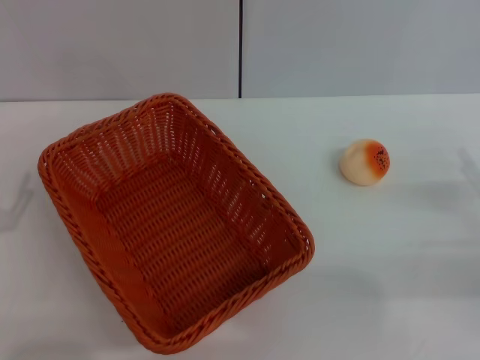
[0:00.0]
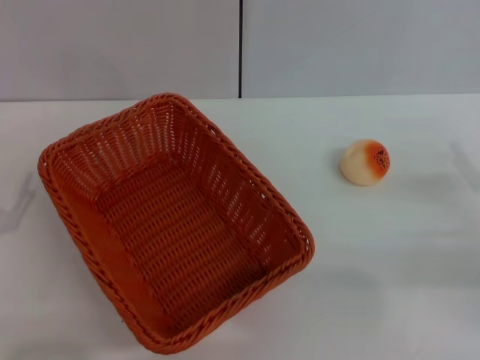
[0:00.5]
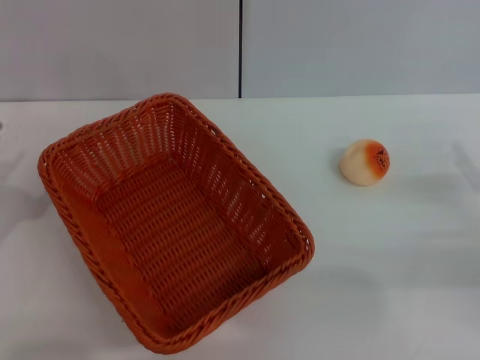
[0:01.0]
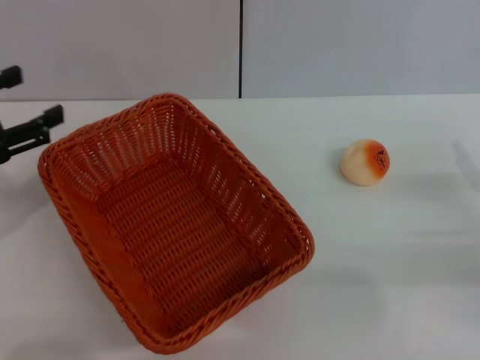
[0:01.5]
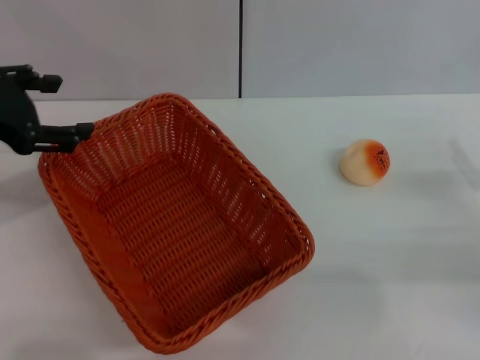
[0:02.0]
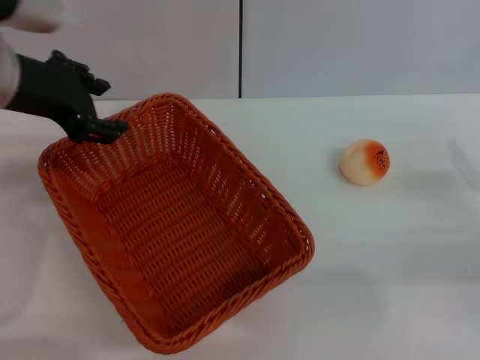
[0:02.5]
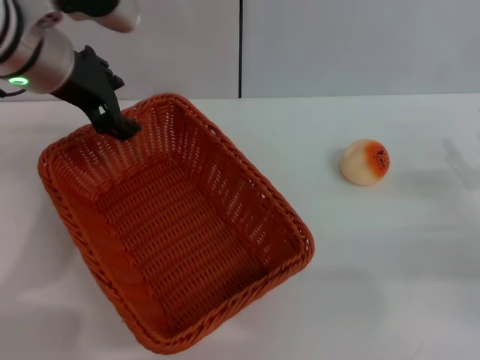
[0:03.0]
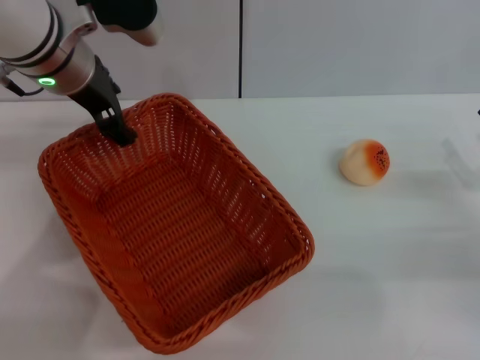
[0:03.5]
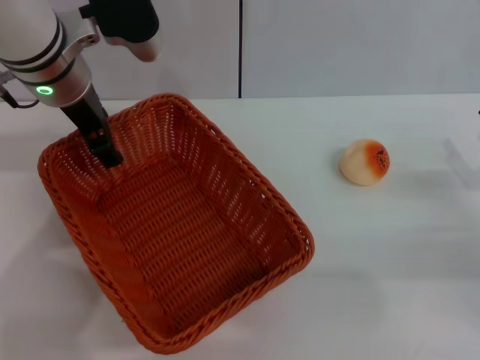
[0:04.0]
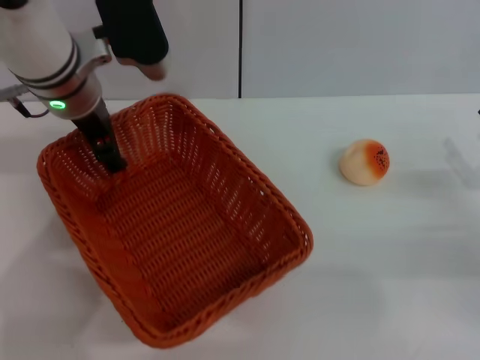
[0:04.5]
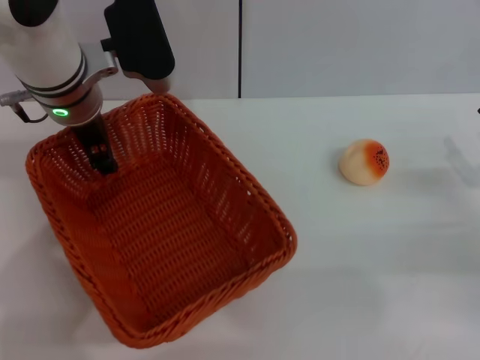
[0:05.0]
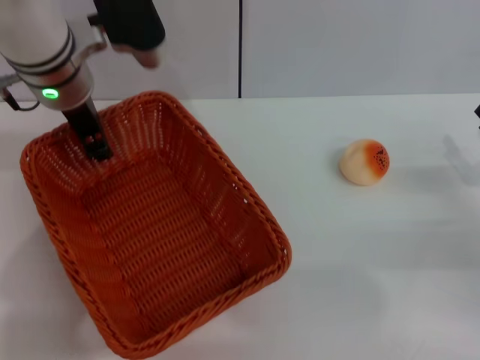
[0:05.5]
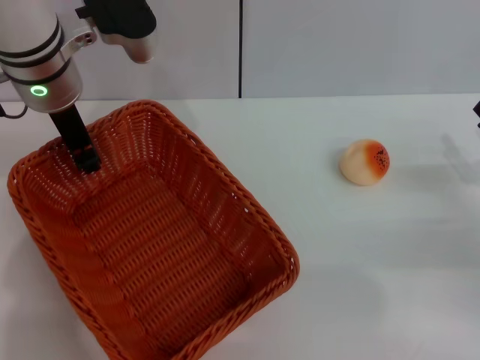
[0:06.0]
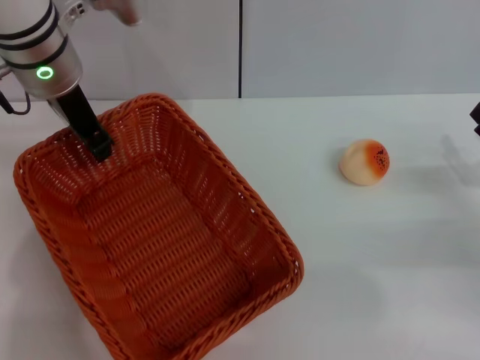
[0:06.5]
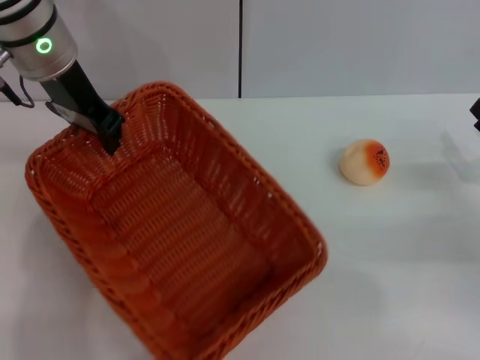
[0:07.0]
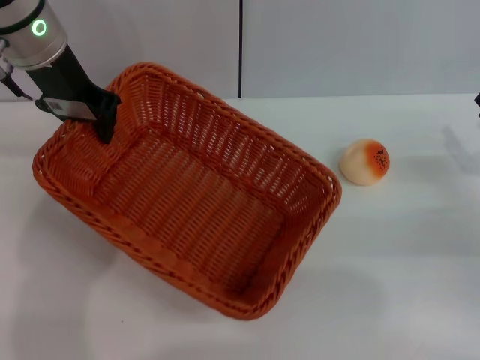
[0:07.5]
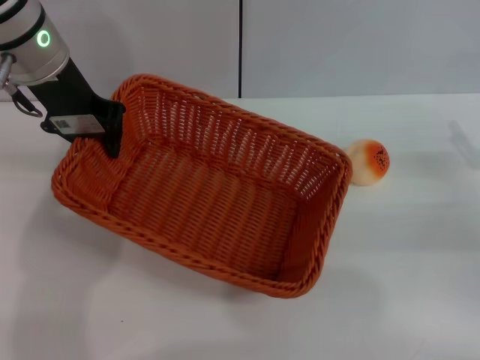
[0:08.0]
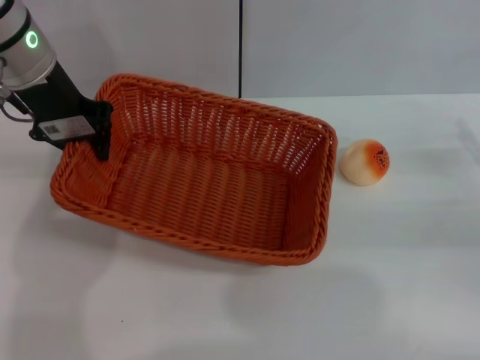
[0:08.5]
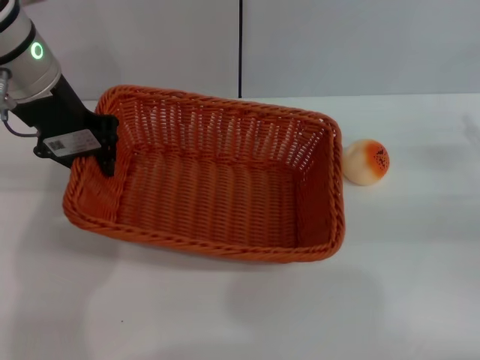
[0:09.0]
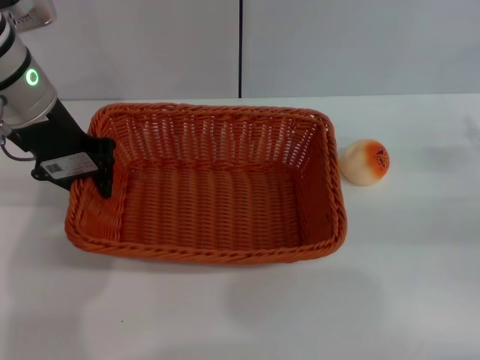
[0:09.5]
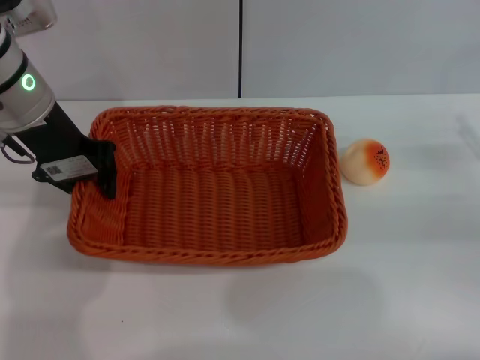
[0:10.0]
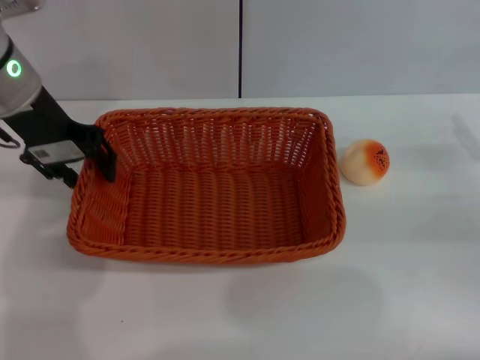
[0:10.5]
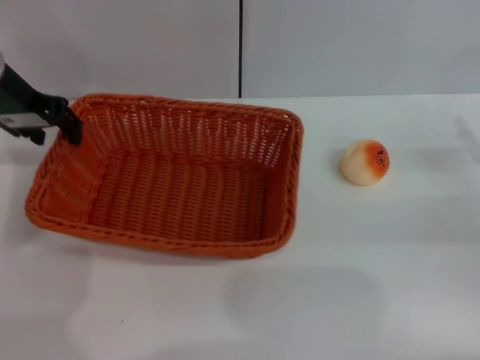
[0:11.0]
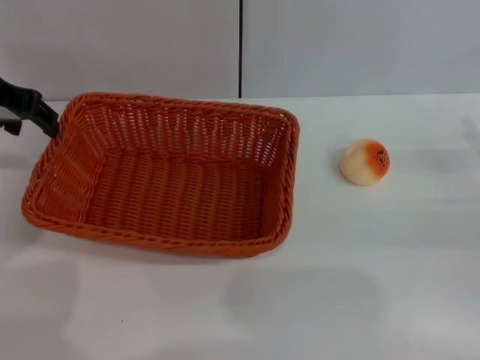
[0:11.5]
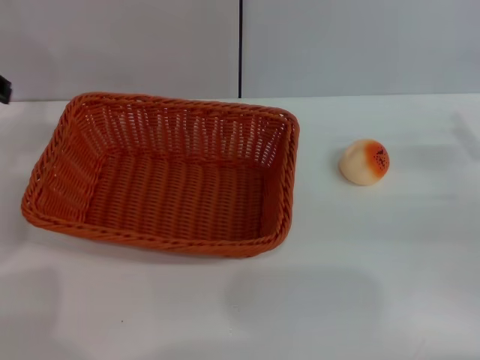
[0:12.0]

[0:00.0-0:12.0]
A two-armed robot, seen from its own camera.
Step, 0:00.0 to 0:11.0: Move the basket to the center of view with the left gripper.
0:00.0 to 0:02.0: The left gripper travels upward and forward by approximately 20 cm.
0:02.0 to 0:04.0: The left gripper travels to the right and forward by approximately 15 cm.
0:04.0 to 0:06.0: The left gripper closes.
0:08.0 to 0:10.0: The grippers make only small movements.
0:10.0 to 0:12.0: The left gripper is displaced to the left and upward by some 10 cm, and opens its fingers.

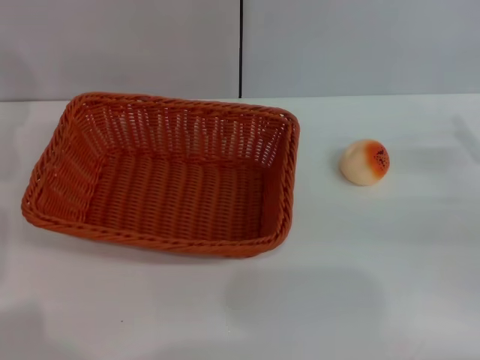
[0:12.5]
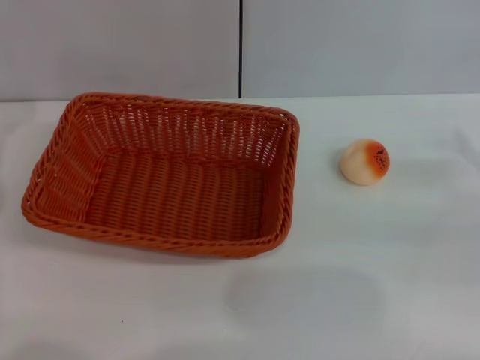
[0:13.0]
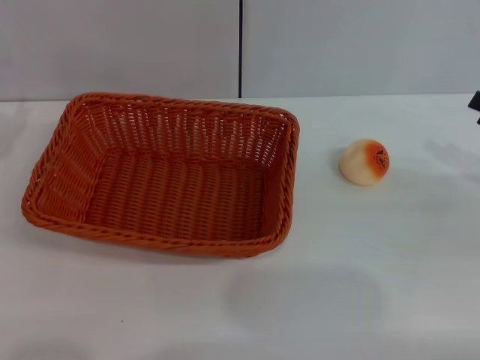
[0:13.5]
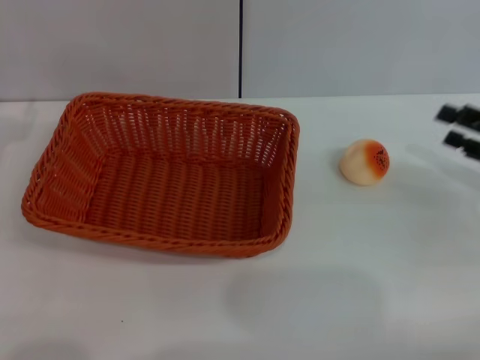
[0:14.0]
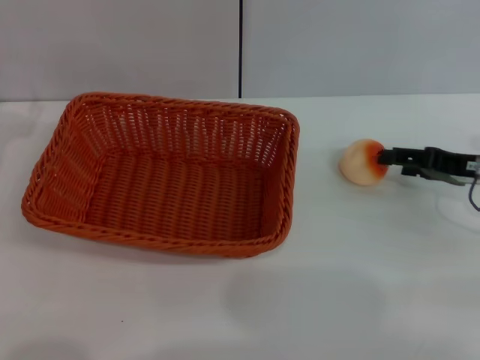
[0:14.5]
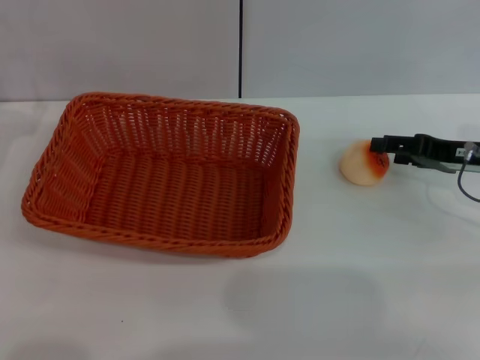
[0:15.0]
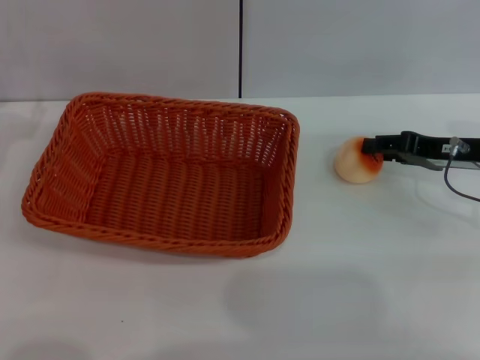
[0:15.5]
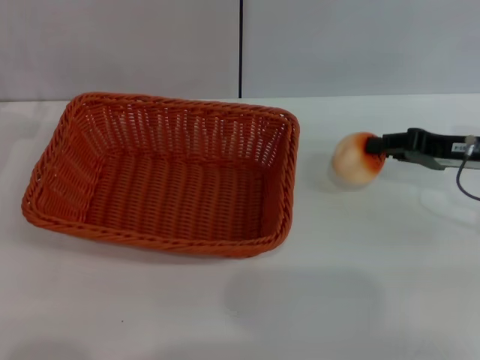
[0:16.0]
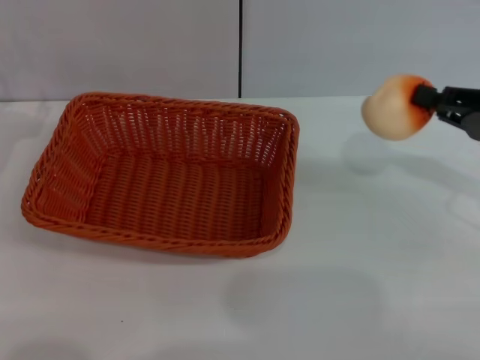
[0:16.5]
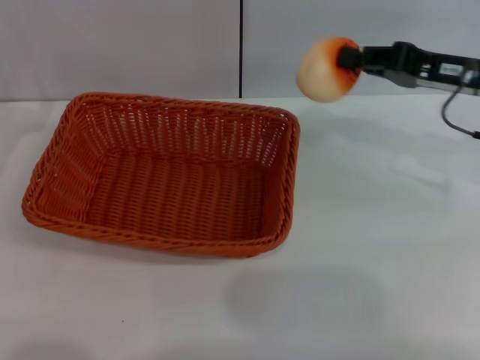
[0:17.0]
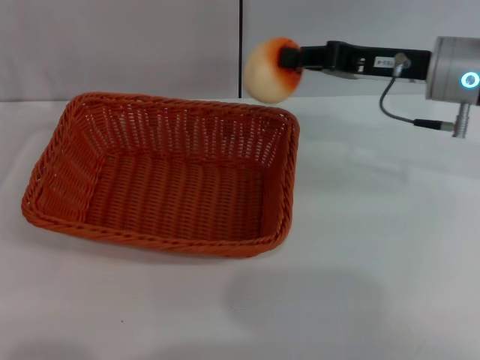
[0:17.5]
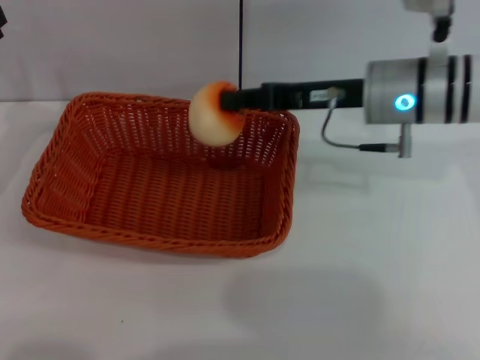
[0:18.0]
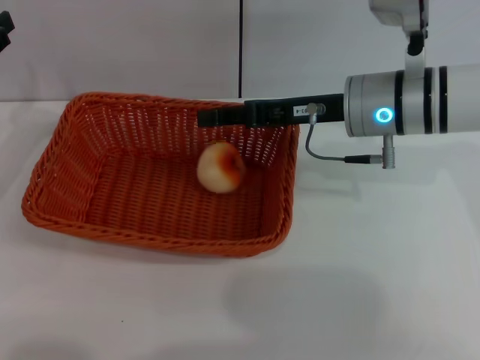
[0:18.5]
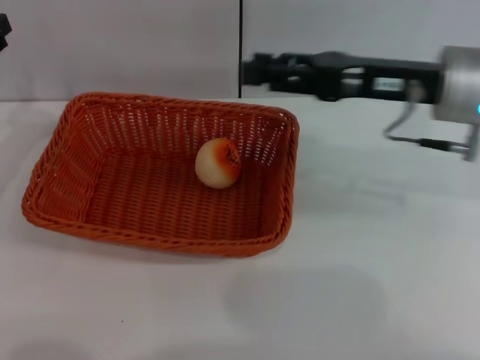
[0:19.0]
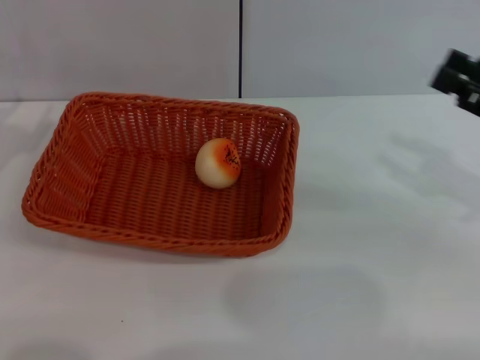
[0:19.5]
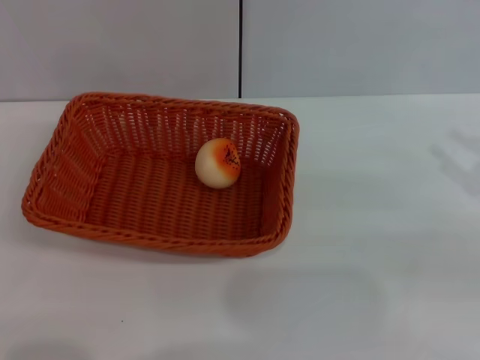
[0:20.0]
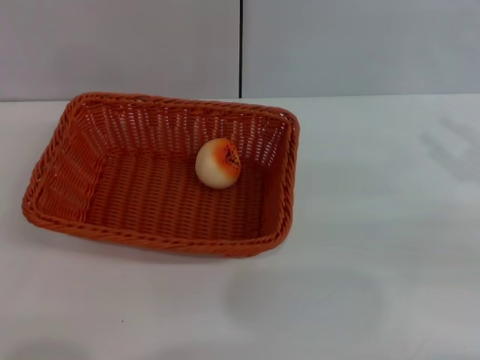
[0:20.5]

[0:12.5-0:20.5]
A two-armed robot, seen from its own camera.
Step, 0:12.5 to 0:16.0: Pick up the egg yolk pastry with the right gripper.
Step, 0:16.5 to 0:18.5: Place the egg yolk pastry into the basket with the right gripper.
0:12.5 to 0:14.5: The right gripper heads to the left, covering approximately 5 cm.
0:14.5 to 0:16.5: The right gripper moves upward, some 5 cm, and closes.
0:16.5 to 0:18.5: The right gripper heads to the left and forward, covering about 20 cm.
0:18.5 to 0:20.5: The left gripper shifts about 15 cm backward and downward; the right gripper heads to the right and backward, covering approximately 25 cm, and opens up.

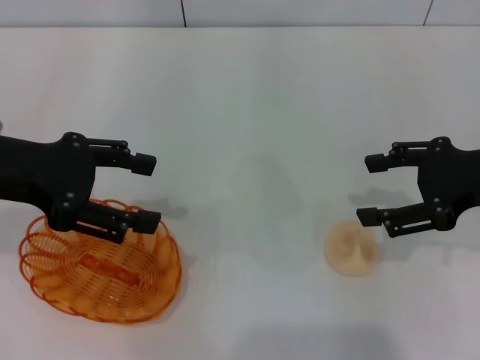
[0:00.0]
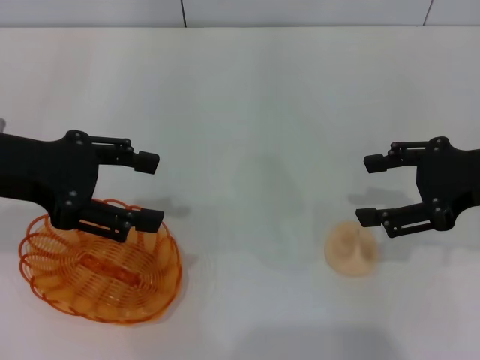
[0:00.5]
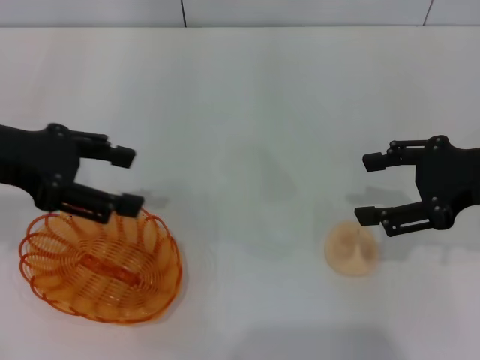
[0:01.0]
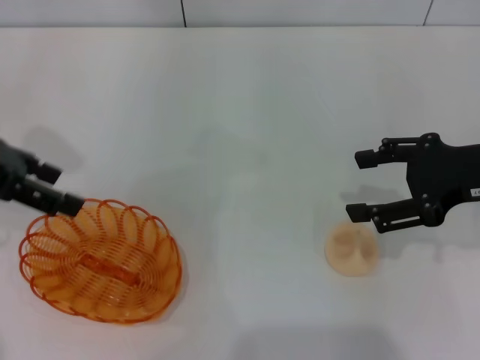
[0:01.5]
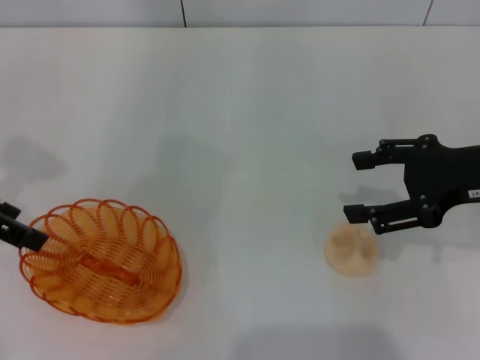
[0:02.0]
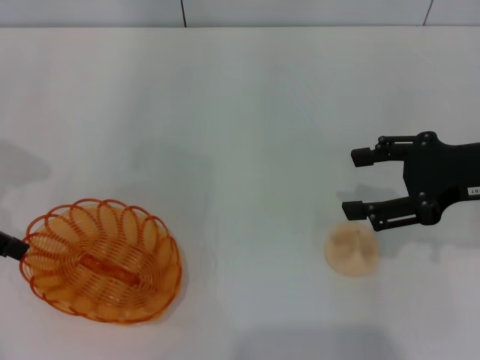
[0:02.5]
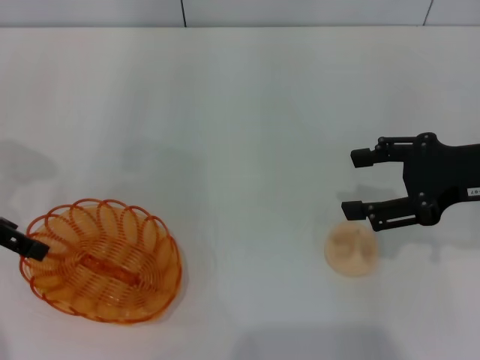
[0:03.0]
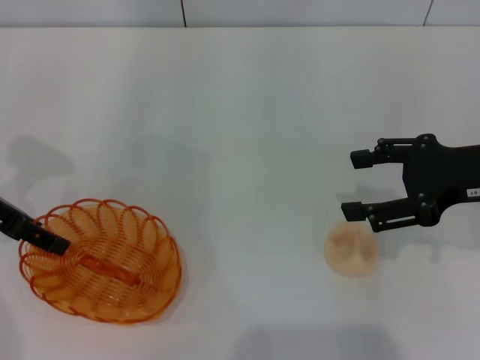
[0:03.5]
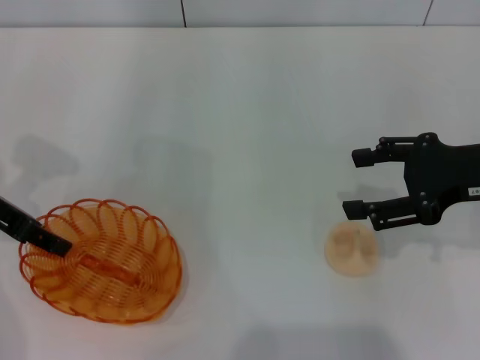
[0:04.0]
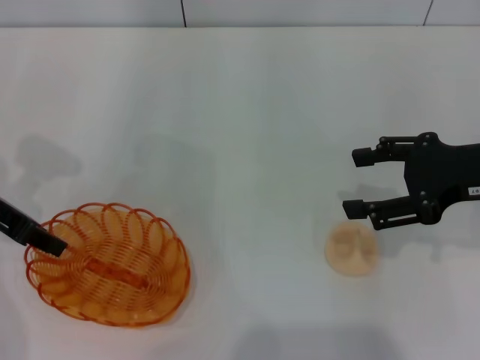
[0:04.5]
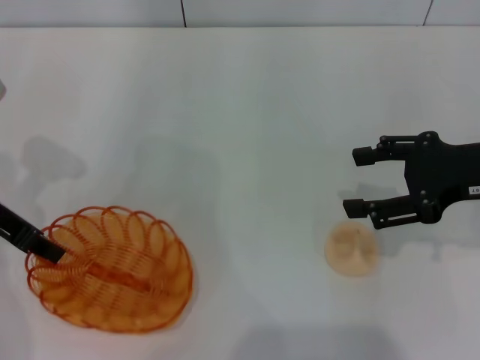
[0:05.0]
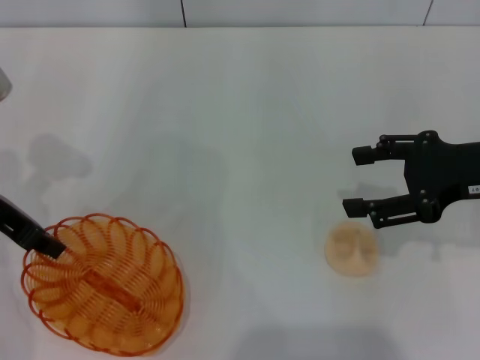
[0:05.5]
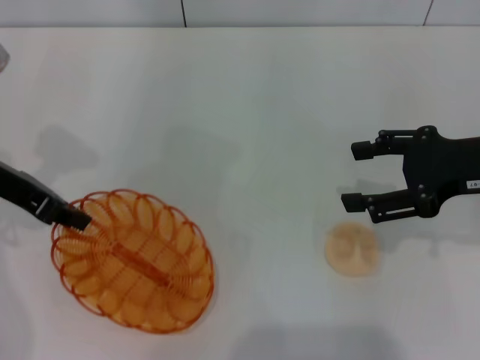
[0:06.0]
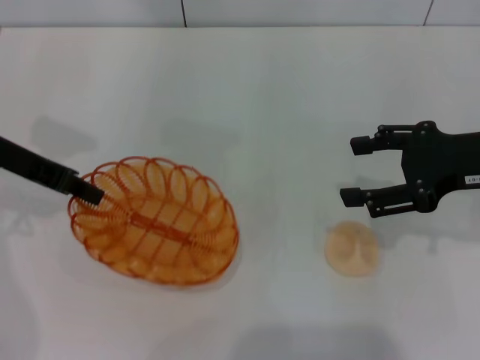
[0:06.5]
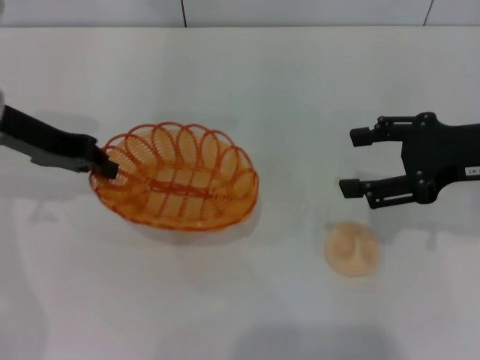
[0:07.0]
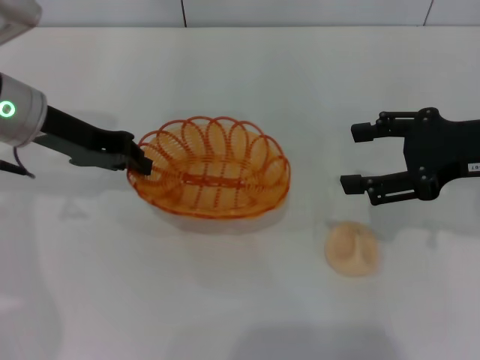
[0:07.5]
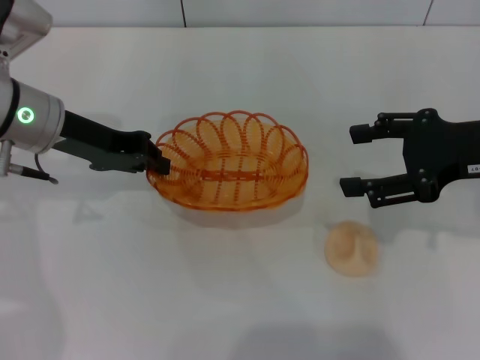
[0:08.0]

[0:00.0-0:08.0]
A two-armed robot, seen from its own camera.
Step, 0:00.0 to 0:06.5: Pick up the basket with the left gripper.
0:00.0 to 0:02.0: The left gripper moves some 5 cm.
0:02.0 to 0:04.0: The left gripper shifts some 5 cm downward.
0:04.0 to 0:06.0: The left gripper closes up.
0:06.0 to 0:08.0: The left gripper is displaced to the right by some 5 cm.
